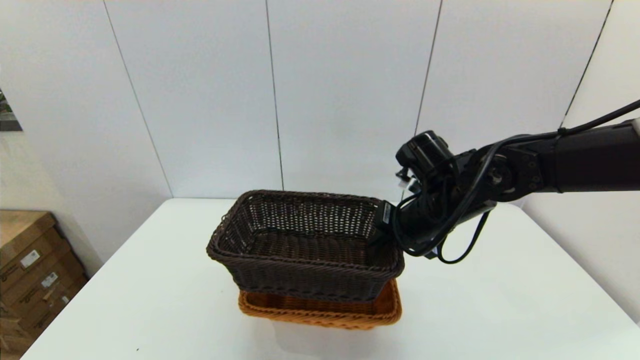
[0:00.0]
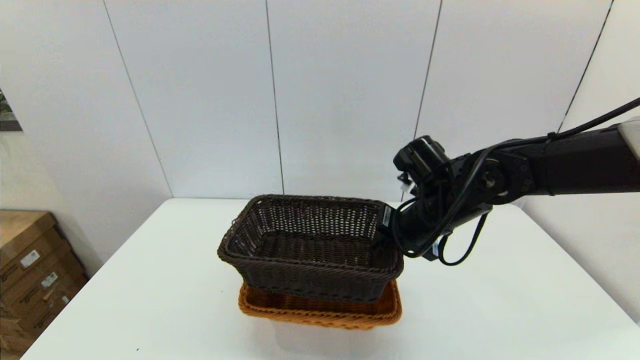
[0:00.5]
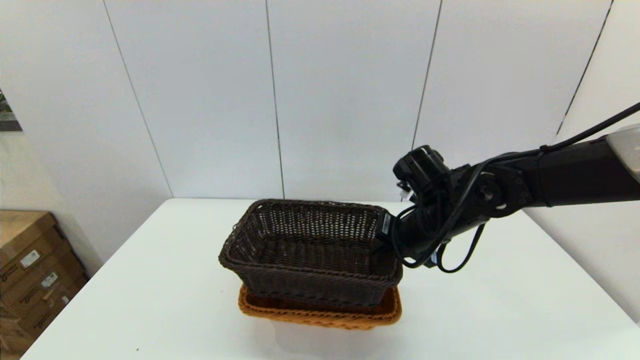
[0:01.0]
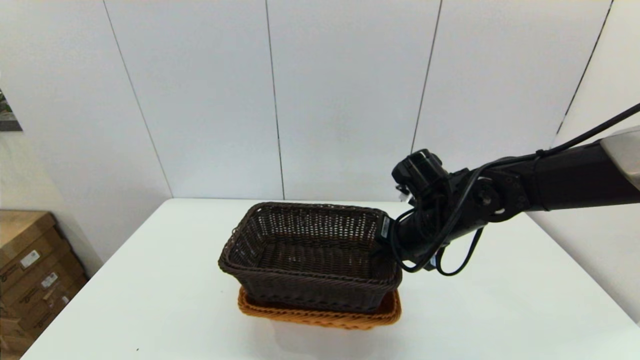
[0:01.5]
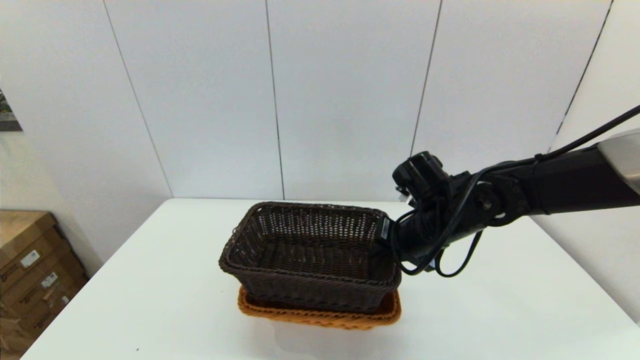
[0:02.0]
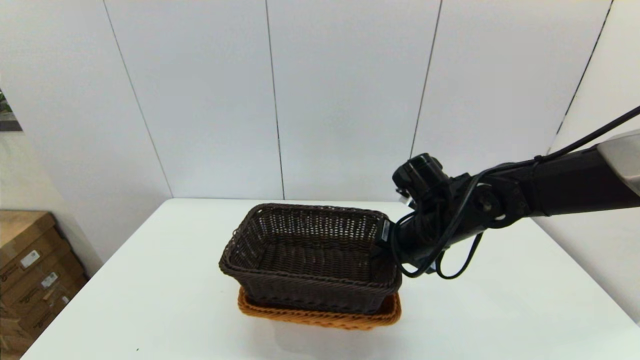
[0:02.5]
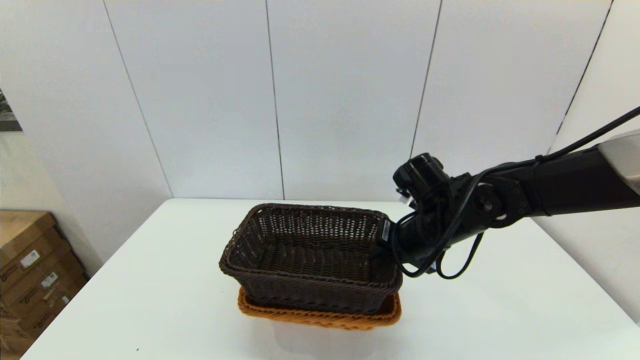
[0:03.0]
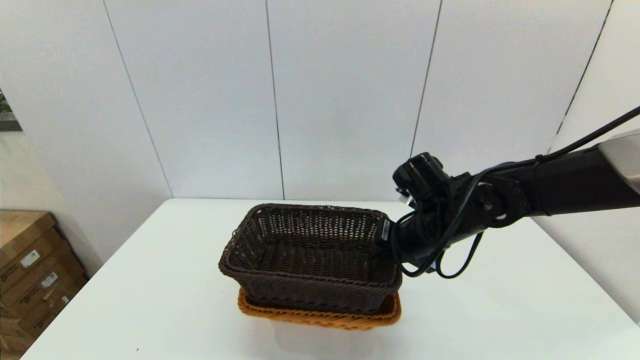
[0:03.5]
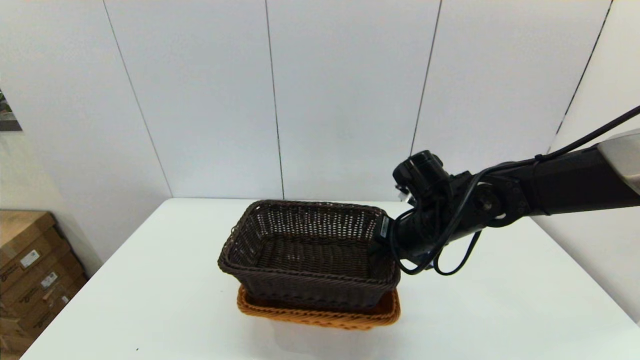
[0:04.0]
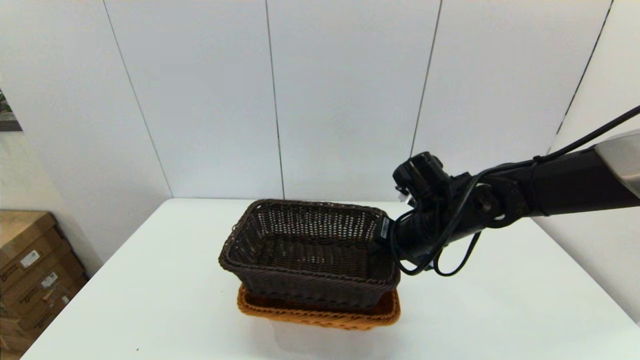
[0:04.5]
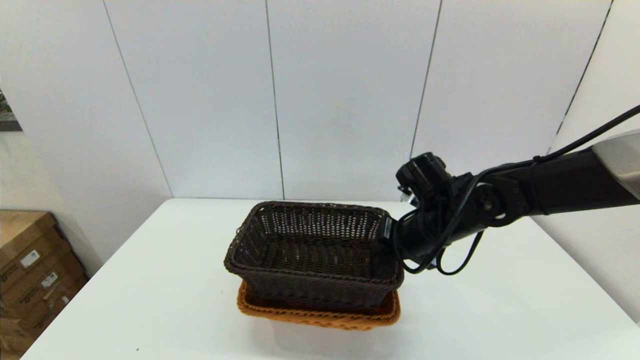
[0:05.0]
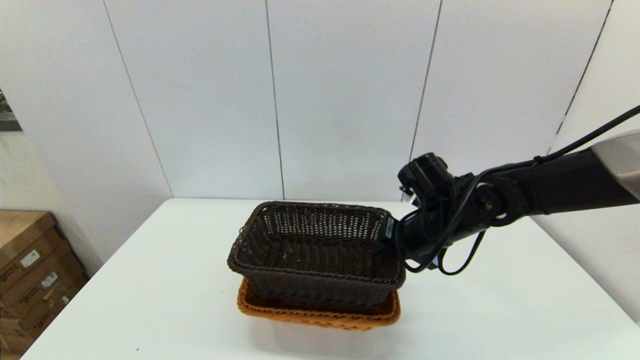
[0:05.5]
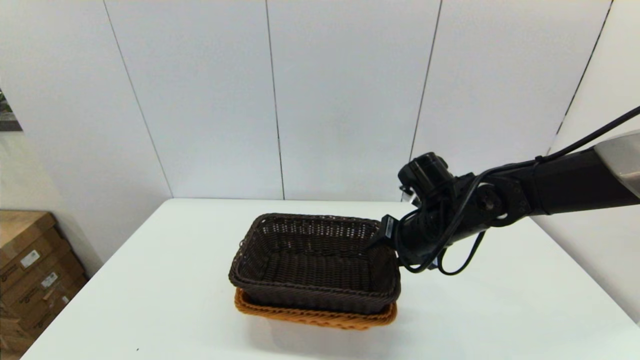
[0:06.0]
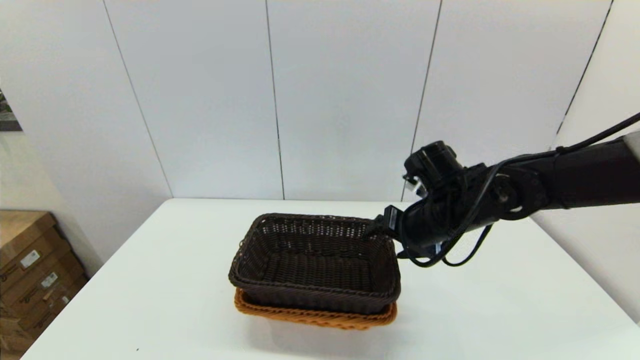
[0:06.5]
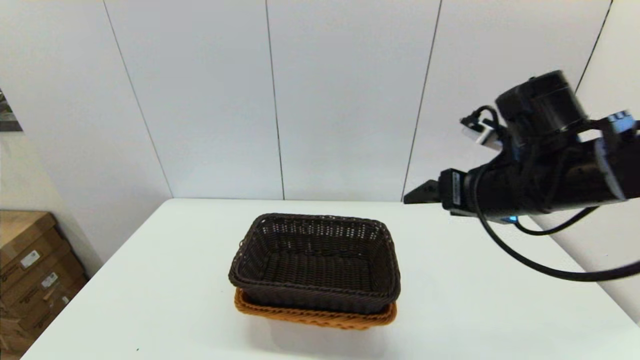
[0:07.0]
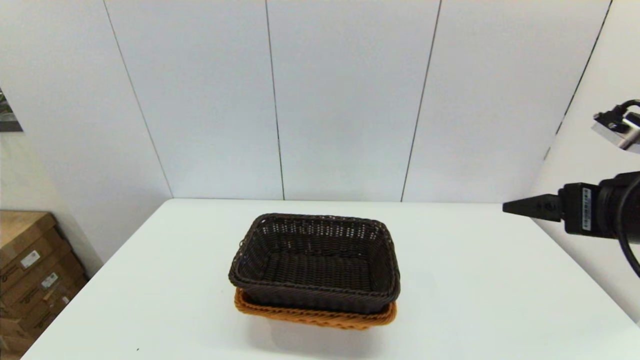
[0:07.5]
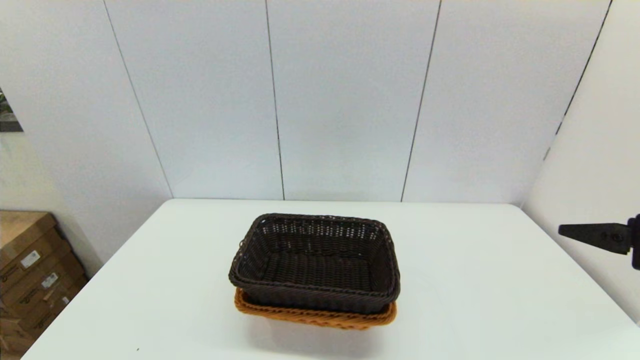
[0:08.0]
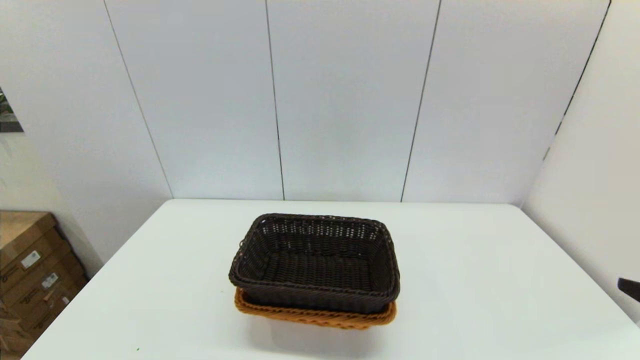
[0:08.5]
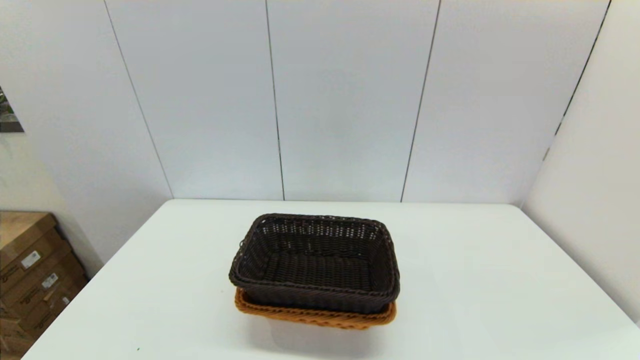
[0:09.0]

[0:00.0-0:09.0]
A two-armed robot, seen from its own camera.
Task of the whole recording: stack a basket on top of another basket.
Step, 0:00.0 to 0:06.5: Place the dark basket into the light color basket with the right gripper.
0:00.0 to 0:02.0: The grippers make only small movements.
0:02.0 to 0:04.5: Neither gripper changes place.
0:04.5 to 0:07.0: The right gripper heads upward, backward and to the right, covering approximately 15 cm, and opens up.
0:07.0 to 0:09.0: The right gripper is displaced backward and to the right by roughly 30 cm.
